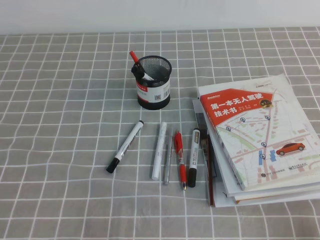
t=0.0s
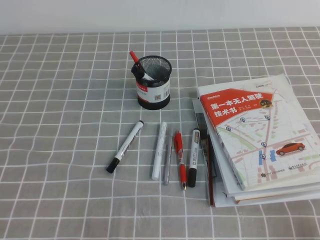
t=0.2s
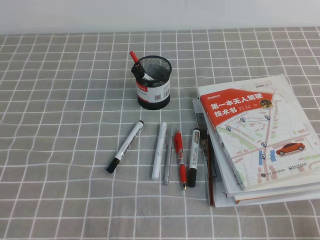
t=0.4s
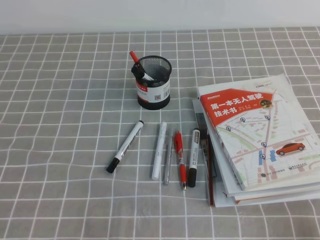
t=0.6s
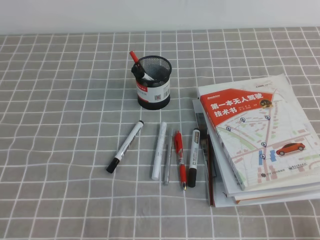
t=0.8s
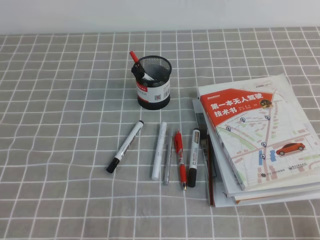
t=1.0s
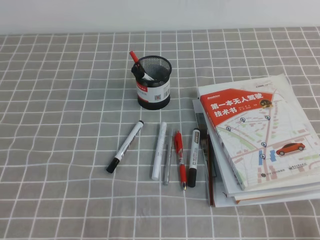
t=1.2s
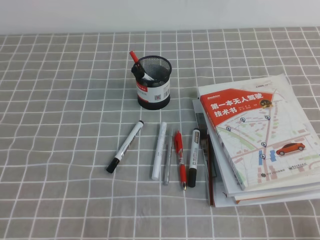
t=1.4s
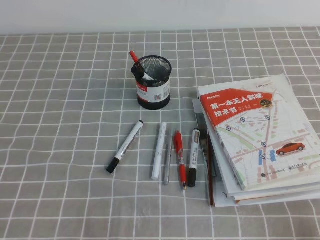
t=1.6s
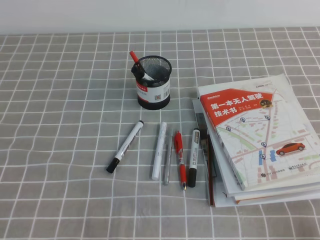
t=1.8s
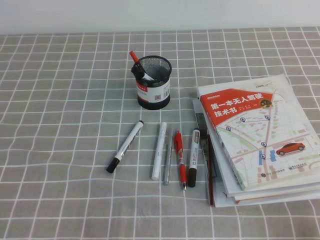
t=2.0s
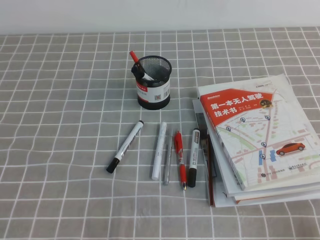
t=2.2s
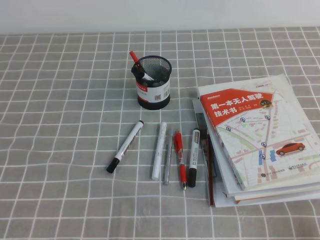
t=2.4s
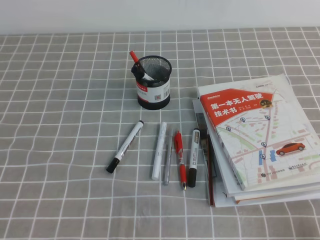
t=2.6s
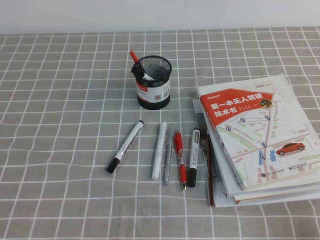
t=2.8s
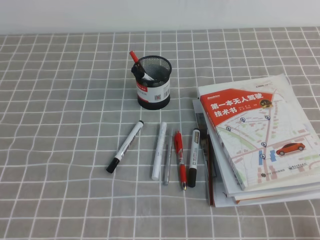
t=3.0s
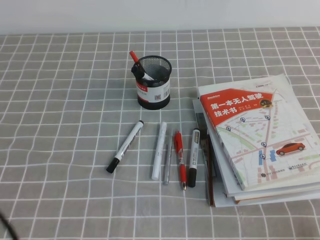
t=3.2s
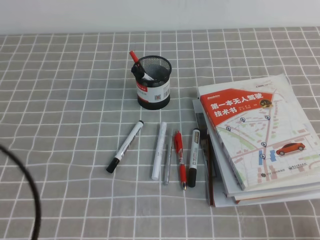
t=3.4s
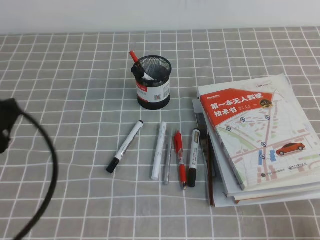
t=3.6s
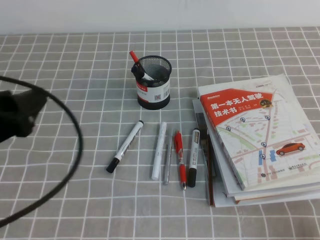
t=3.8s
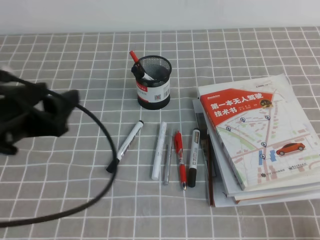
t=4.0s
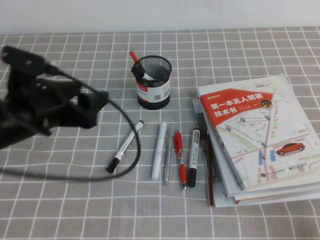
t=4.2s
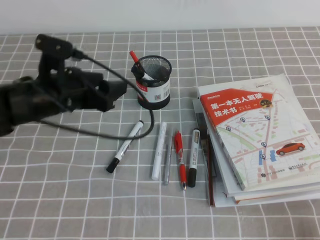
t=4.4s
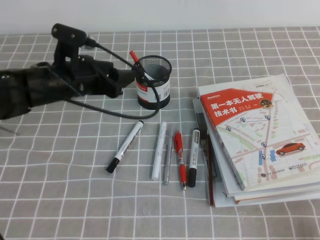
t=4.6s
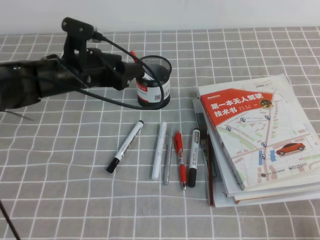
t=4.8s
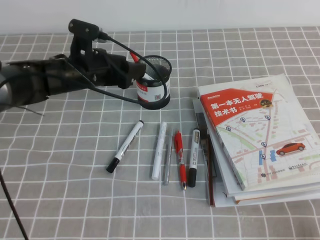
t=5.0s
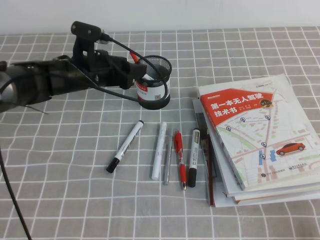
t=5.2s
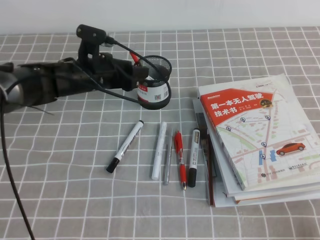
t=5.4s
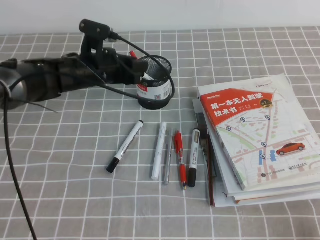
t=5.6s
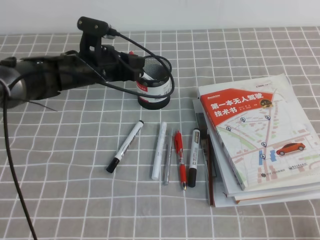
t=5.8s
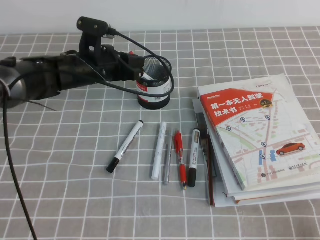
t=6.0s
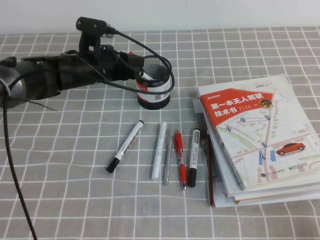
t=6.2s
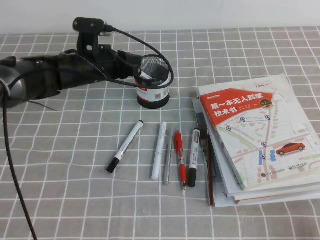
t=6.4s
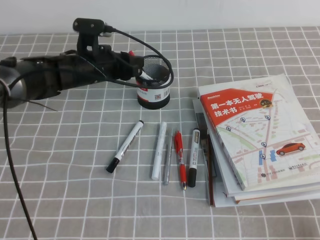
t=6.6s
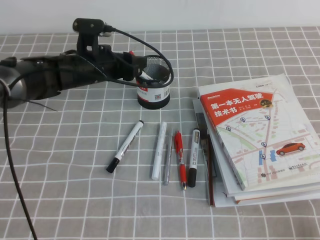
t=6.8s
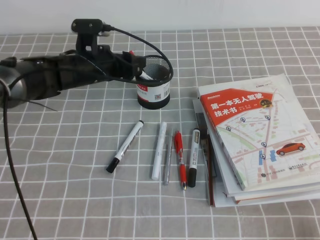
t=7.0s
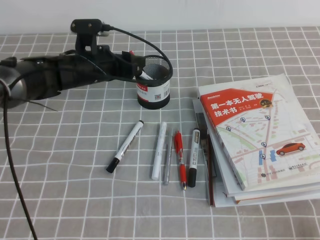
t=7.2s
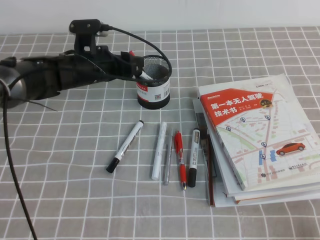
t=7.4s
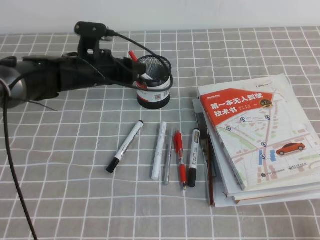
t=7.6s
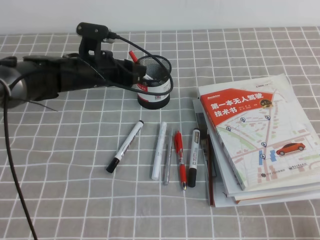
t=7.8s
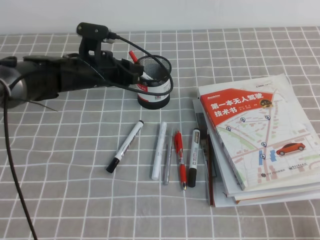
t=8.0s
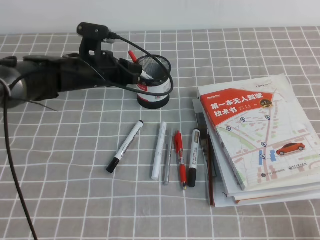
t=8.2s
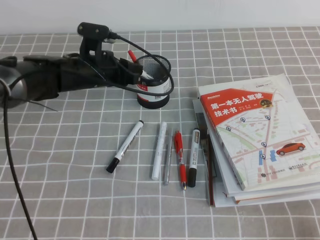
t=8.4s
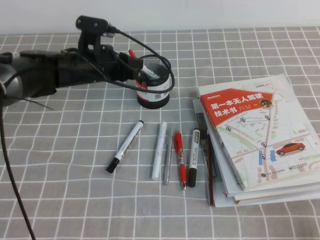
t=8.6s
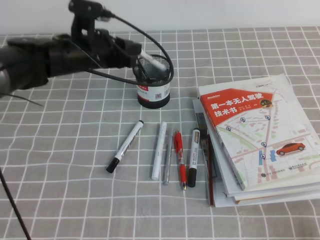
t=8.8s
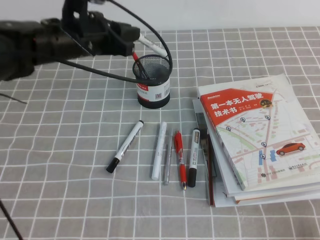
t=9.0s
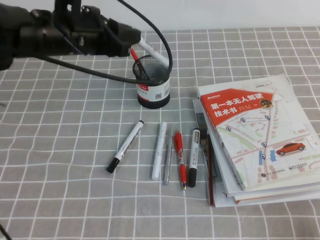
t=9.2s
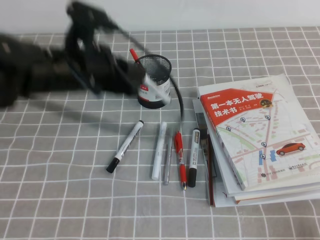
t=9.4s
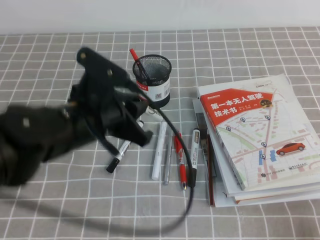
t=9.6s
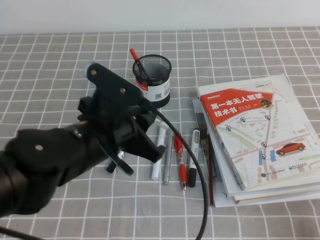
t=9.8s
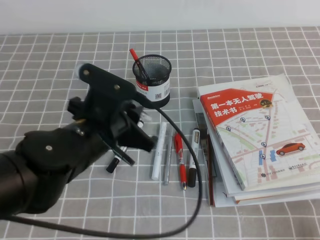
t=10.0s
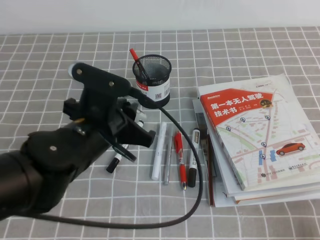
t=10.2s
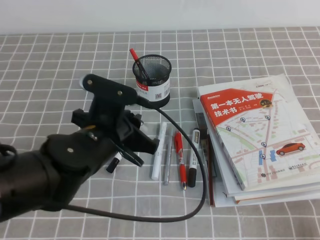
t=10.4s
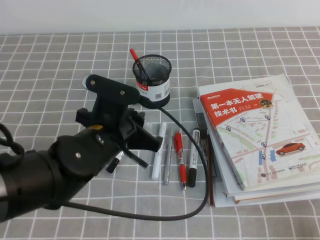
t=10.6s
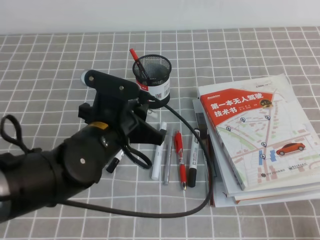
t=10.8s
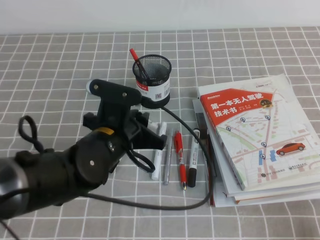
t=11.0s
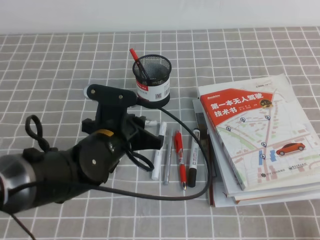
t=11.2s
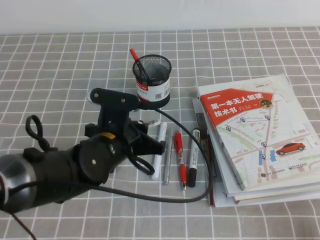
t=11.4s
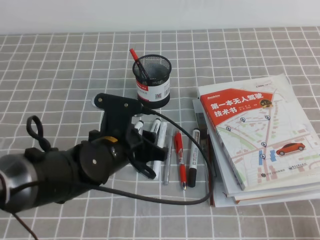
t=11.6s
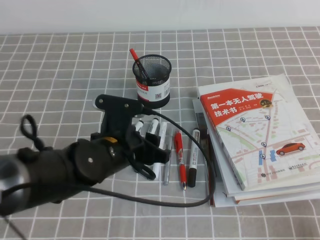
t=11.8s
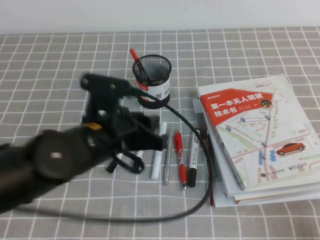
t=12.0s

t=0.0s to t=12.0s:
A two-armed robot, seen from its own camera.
t=0.0s to t=1.6s: Both grippers stay about where they are.
t=3.0s to t=4.4s: The left gripper shifts some 25 cm forward and to the right, and opens up.
t=4.4s to t=6.0s: The left gripper travels forward by some 10 cm, and closes its fingers.
t=6.0s to t=7.6s: The left gripper opens.
t=7.6s to t=9.0s: The left gripper travels upward by about 10 cm, and closes.
t=9.0s to t=10.4s: The left gripper travels backward by about 15 cm.
t=10.4s to t=12.0s: The grippers move only a little.

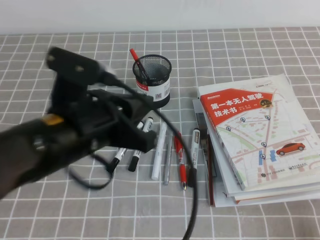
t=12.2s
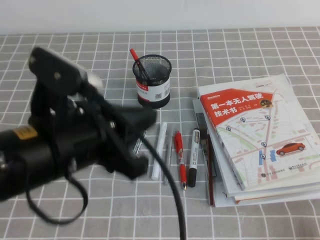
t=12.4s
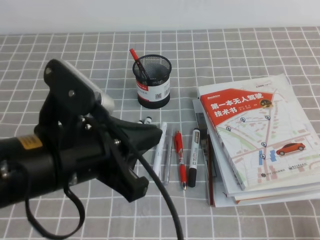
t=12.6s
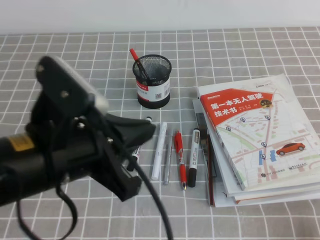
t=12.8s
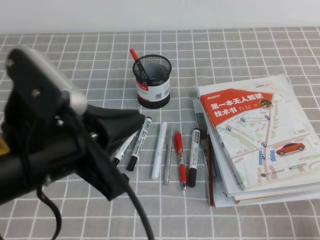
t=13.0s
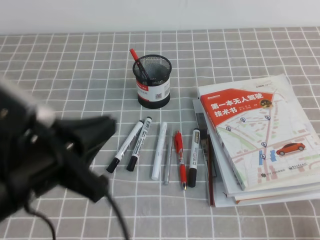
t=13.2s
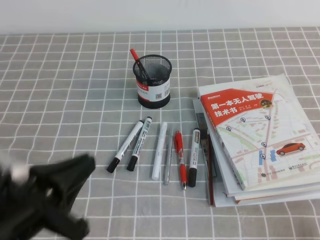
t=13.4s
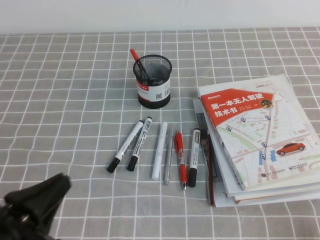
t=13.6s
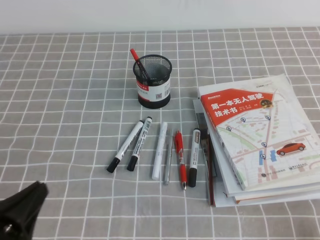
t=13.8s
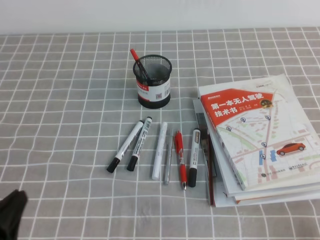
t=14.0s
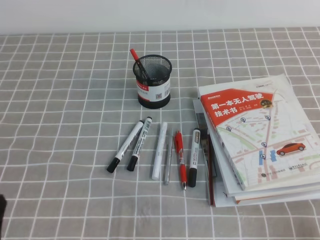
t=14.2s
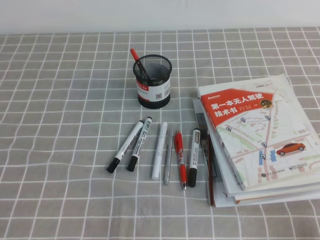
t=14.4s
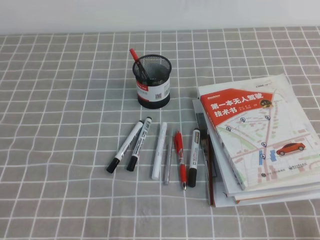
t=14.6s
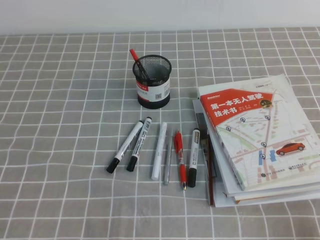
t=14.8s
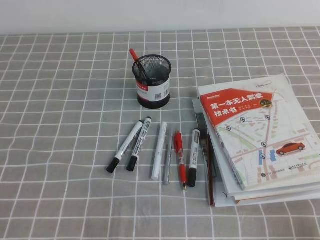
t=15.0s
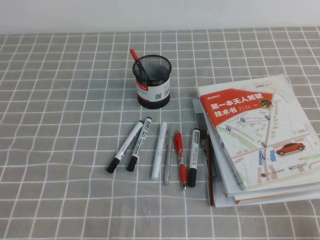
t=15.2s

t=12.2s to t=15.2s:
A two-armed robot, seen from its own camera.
Step, t=12.2s to t=15.2s: Pick up the pen from the pen holder.
t=12.2s to t=13.8s: The left gripper is displaced to the left, backward and downward by some 20 cm.
t=13.8s to t=15.2s: The left gripper ends up some 5 cm from where it was.

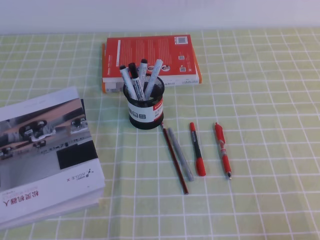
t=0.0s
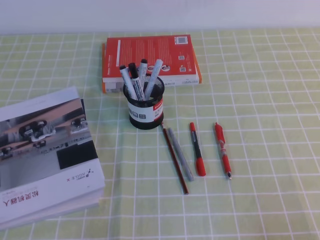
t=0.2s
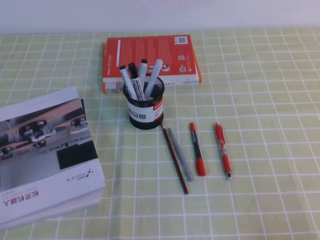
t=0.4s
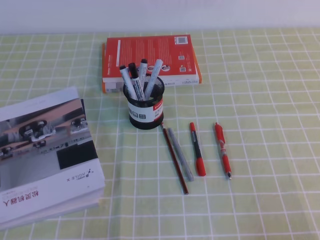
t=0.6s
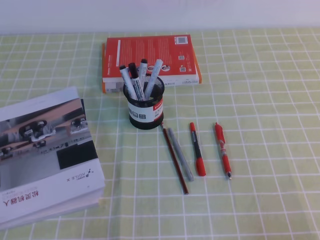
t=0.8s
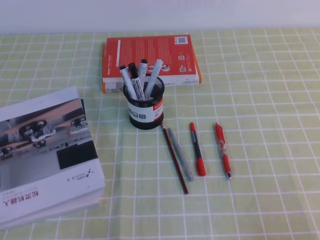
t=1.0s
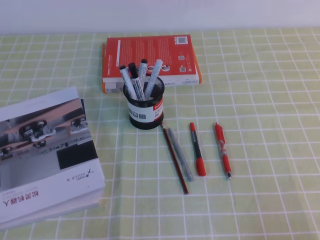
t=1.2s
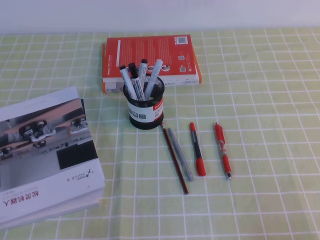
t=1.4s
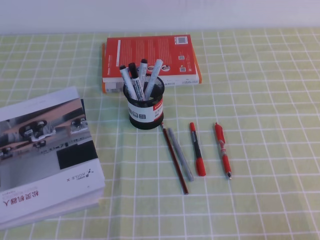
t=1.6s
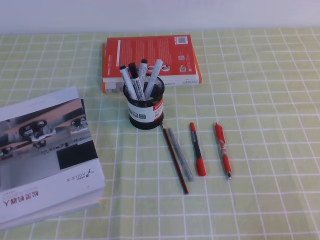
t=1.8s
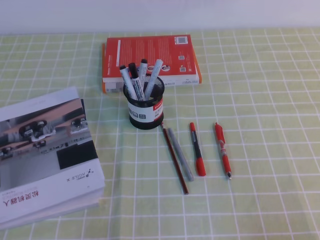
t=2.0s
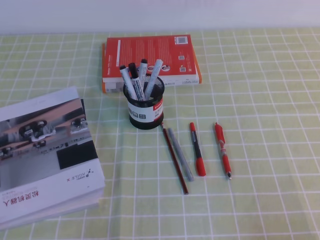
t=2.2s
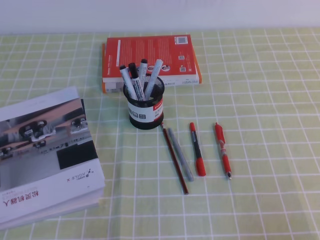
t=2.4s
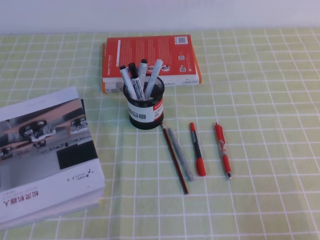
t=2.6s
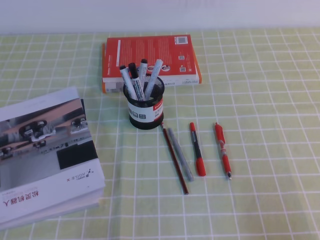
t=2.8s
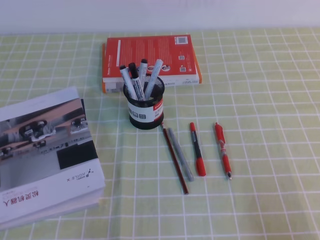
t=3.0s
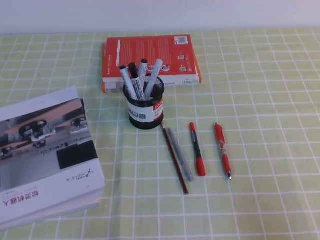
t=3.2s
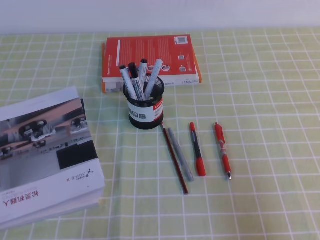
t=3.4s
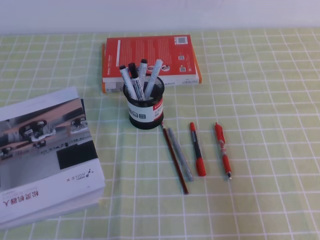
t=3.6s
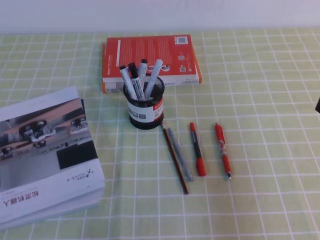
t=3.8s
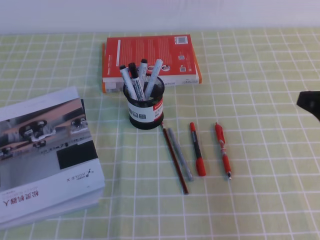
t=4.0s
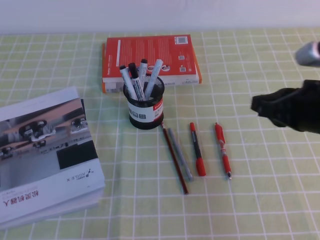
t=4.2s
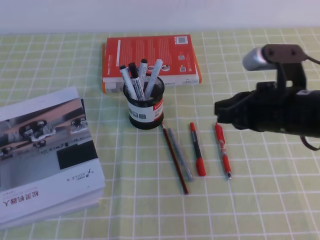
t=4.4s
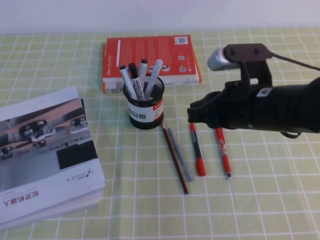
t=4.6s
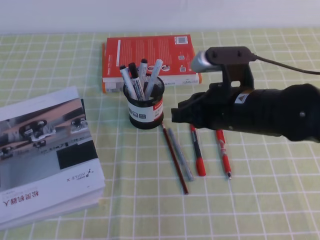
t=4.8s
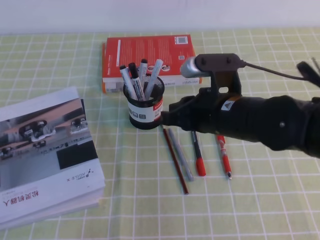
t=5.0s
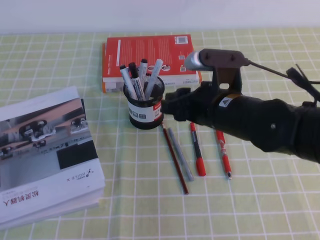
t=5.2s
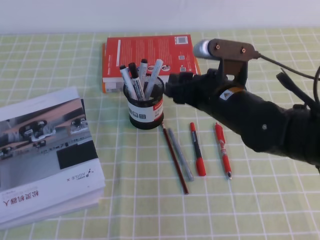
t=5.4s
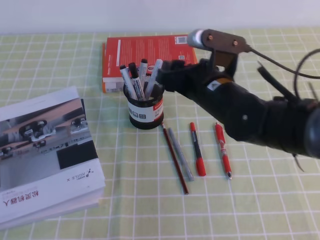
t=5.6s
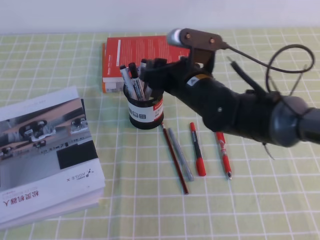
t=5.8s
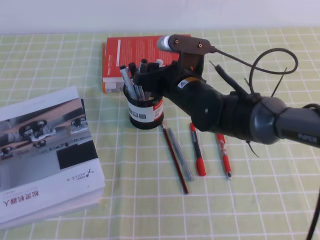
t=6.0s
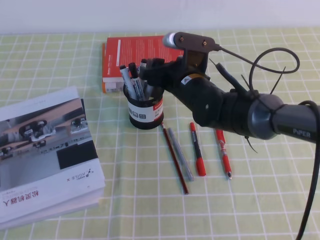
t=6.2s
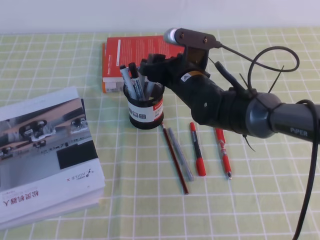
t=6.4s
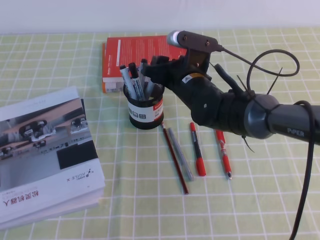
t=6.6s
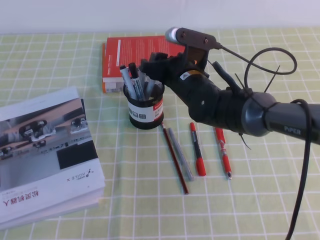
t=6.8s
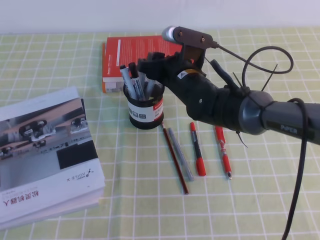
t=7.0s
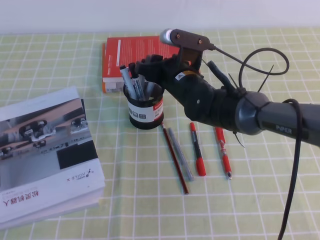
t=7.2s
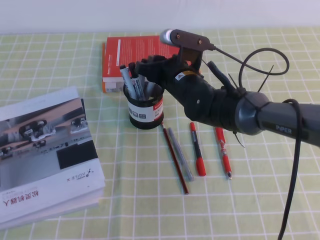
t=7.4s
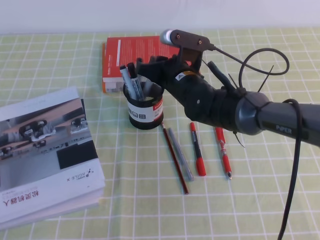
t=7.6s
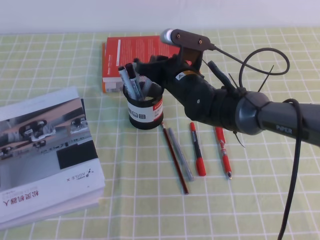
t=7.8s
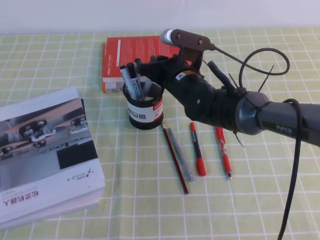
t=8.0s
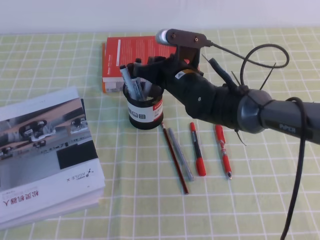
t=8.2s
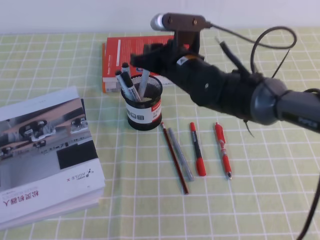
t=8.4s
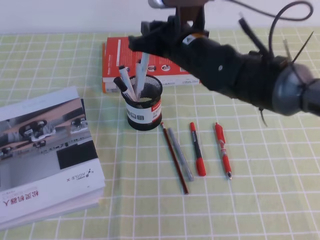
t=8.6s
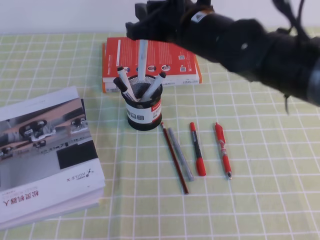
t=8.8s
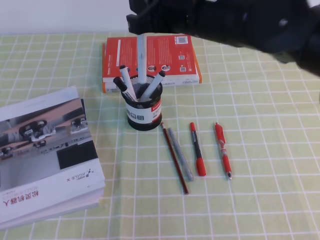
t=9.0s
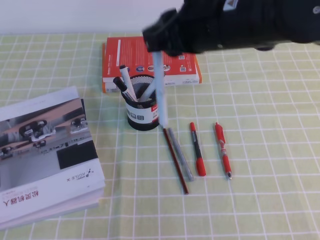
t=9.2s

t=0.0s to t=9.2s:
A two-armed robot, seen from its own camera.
t=0.0s to t=1.6s: The two grippers keep their place.
t=3.0s to t=4.6s: The right gripper travels forward and to the left by approximately 25 cm.
t=4.6s to t=6.2s: The right gripper travels forward, to the left and downward by some 15 cm, and opens up.
t=6.2s to t=7.6s: The right gripper closes up.
t=7.6s to t=9.2s: The right gripper moves upward and backward, about 20 cm.
